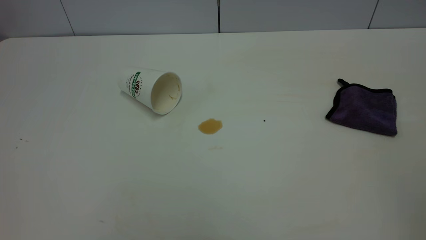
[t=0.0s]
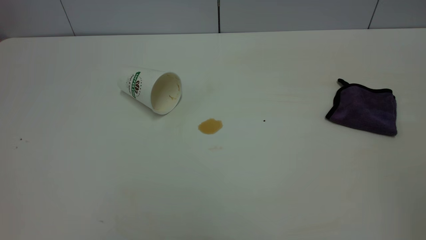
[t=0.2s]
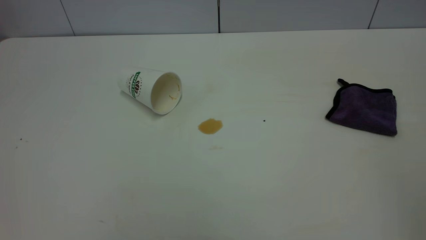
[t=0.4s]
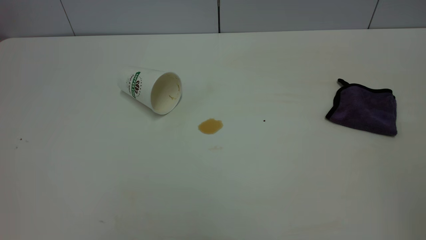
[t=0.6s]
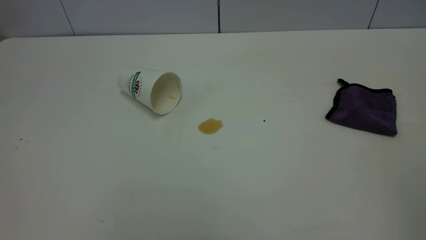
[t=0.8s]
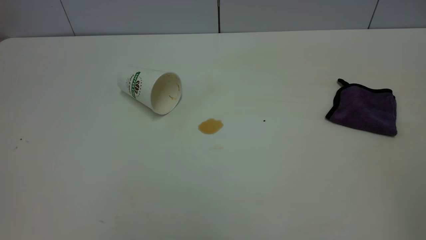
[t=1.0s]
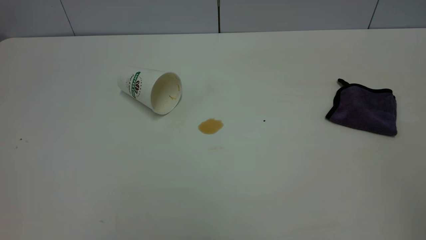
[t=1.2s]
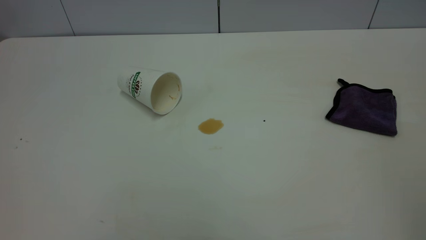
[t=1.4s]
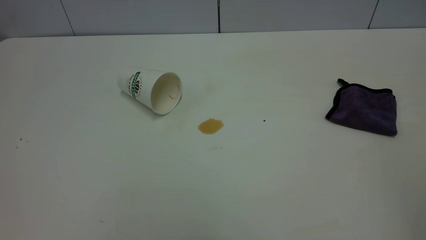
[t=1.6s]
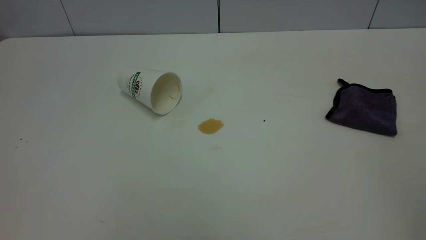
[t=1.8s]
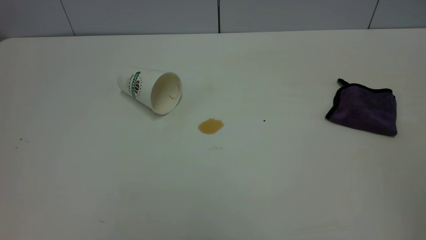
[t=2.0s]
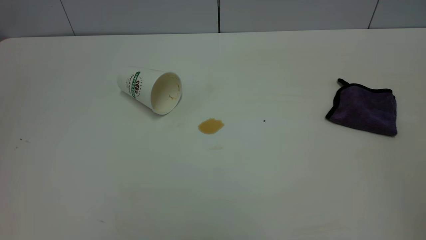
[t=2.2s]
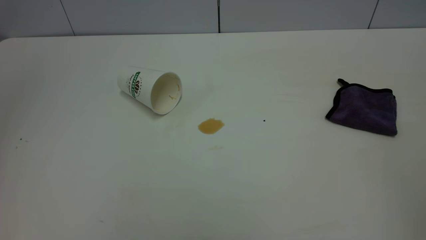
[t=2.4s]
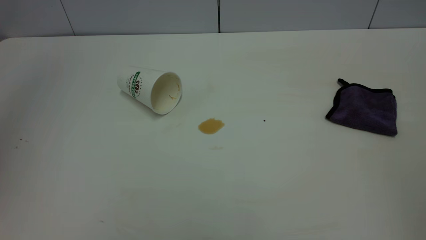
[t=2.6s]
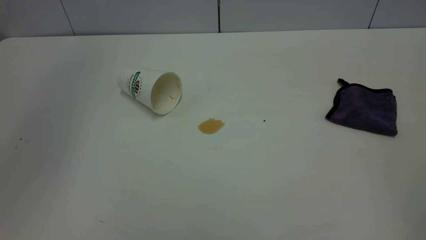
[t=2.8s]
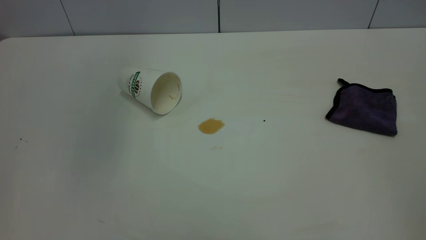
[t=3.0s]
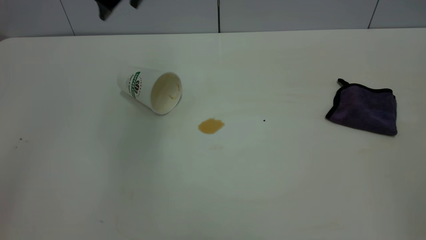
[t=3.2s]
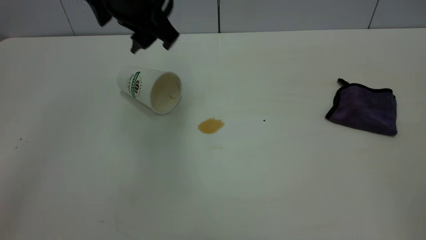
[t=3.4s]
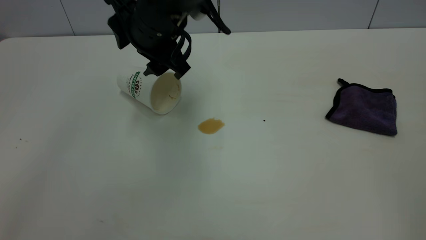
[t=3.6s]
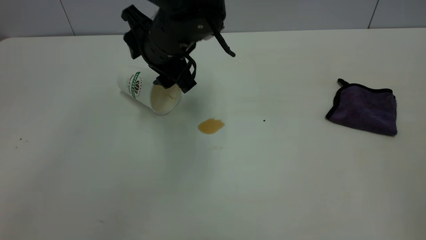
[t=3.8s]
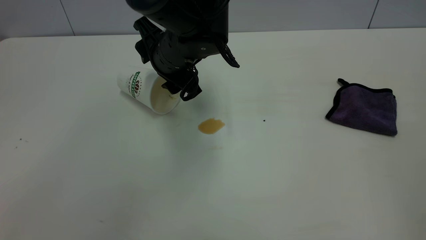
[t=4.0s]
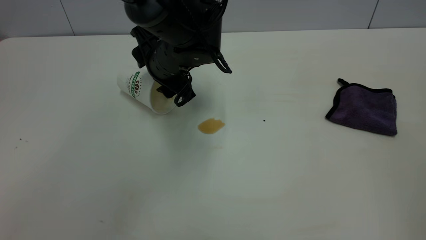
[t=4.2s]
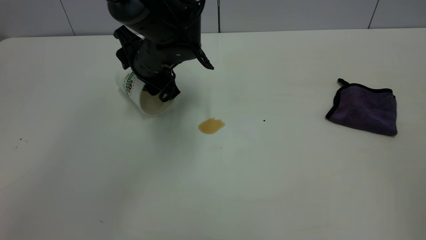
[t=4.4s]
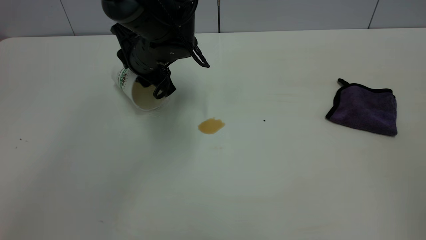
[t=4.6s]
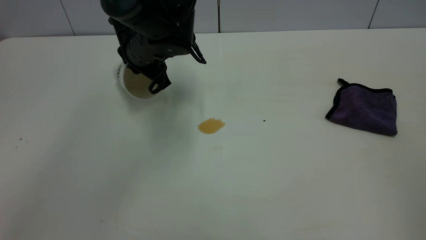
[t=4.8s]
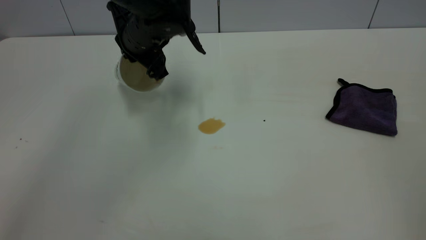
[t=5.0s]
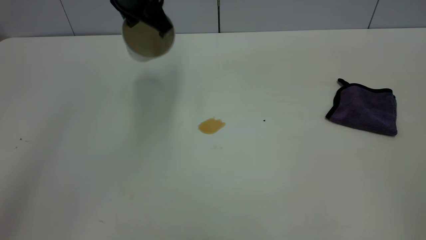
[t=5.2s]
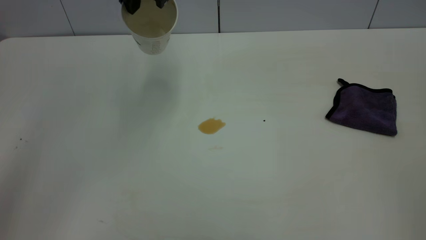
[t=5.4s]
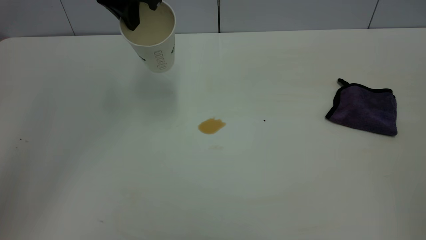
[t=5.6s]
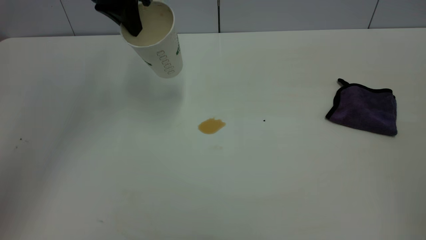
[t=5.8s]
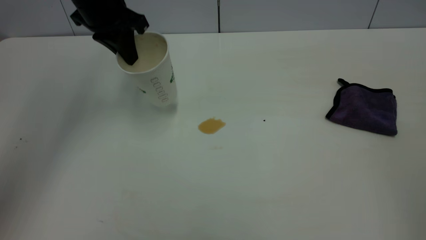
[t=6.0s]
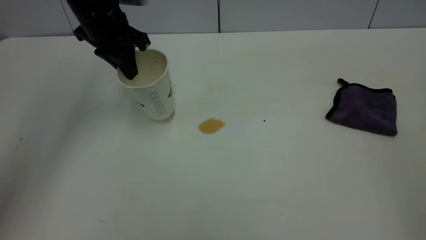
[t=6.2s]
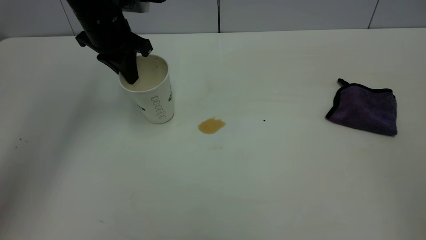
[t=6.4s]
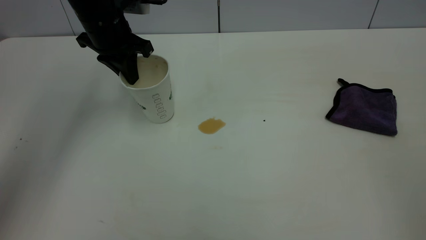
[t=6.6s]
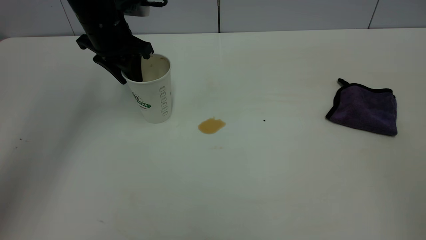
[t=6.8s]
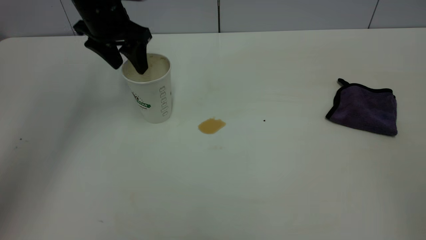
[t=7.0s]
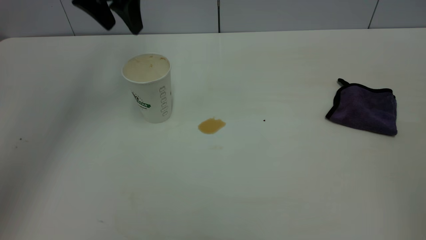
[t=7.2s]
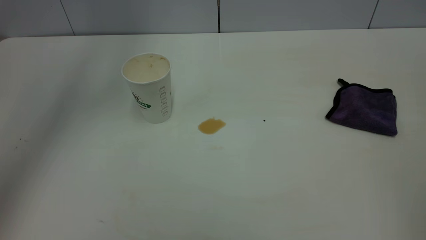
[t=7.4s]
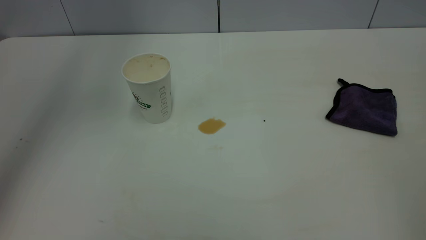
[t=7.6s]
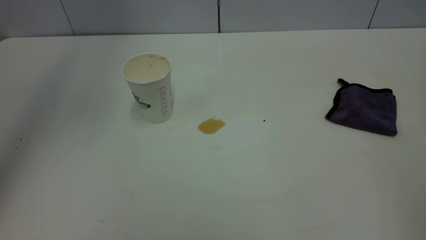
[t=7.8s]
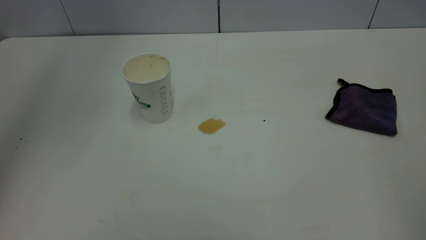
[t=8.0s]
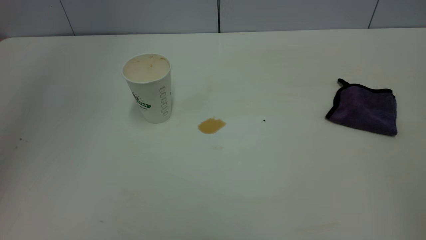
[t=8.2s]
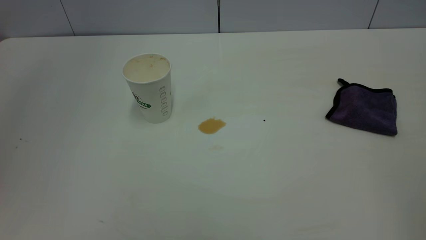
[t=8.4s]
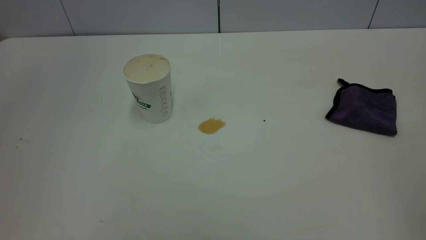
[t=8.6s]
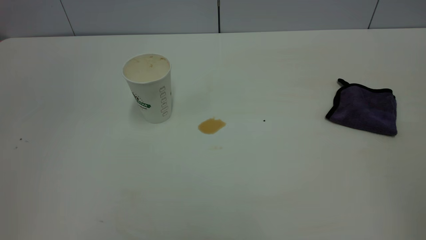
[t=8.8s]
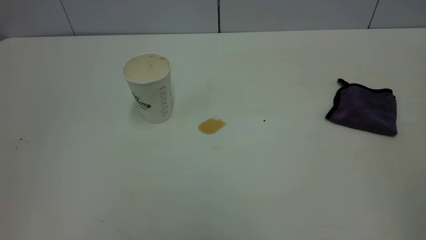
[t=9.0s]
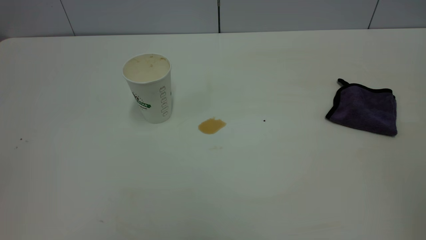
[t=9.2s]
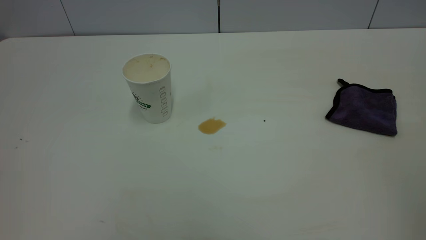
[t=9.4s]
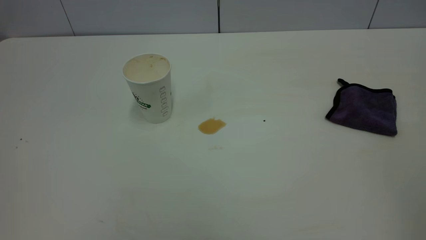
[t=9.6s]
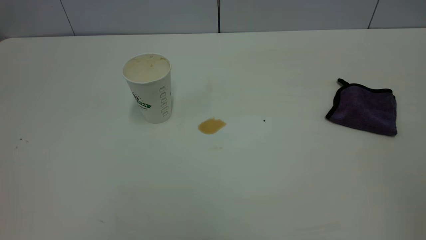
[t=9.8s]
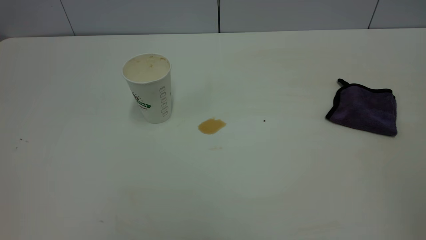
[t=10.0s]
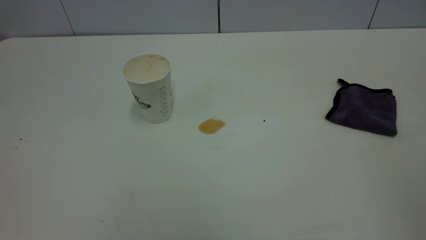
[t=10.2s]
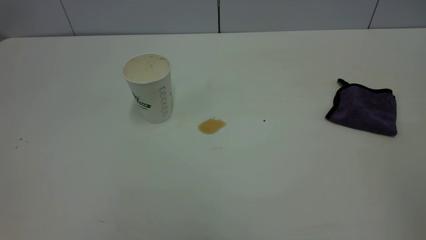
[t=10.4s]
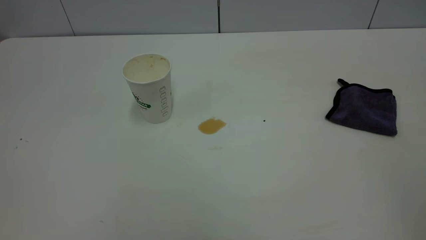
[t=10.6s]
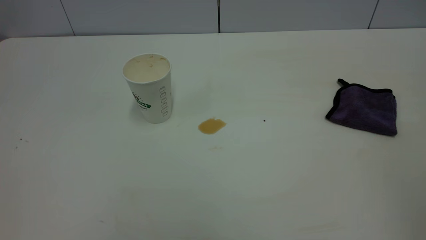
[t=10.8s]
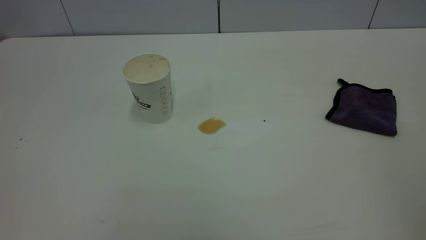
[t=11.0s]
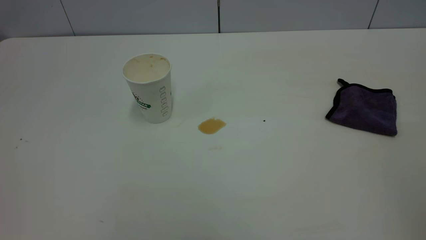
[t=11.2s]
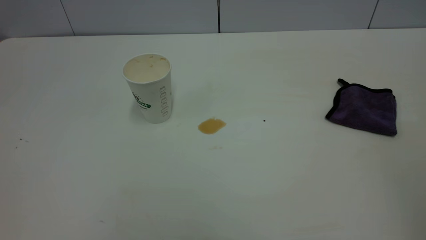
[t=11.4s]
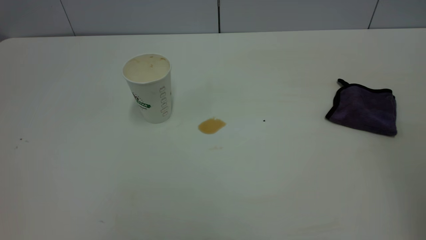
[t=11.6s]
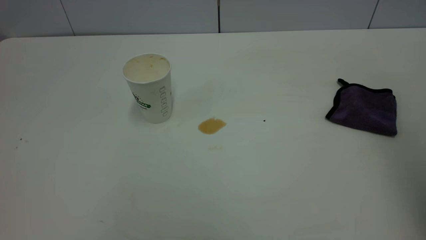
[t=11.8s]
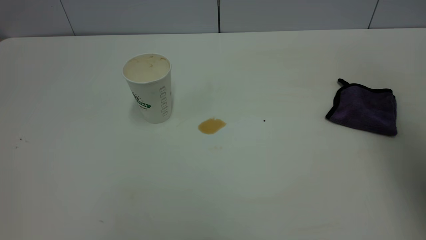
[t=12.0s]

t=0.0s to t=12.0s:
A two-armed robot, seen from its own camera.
Task of the whole recording: the left gripper pick up the fallen cup and place it upright, the right gripper grasp the purple rag and wipe the tea stain on the table, the right gripper put the purple rag back in its original position.
Step, t=0.0s to t=7.0s: Stand the paper cup upright.
t=0.0s to t=1.6s: Both grippers stay put.
t=1.6s to t=3.0s: The left gripper moves forward and to the right, about 35 cm, and opens.
t=3.0s to t=4.4s: The left gripper is displaced downward by approximately 25 cm.
t=4.4s to t=6.0s: The left gripper is displaced upward and to the left by roughly 15 cm, and closes up.
t=6.0s to t=7.6s: The left gripper is displaced upward by about 20 cm, and opens up.
t=10.4s to t=12.0s: The right gripper is displaced forward by roughly 25 cm, and opens its fingers.

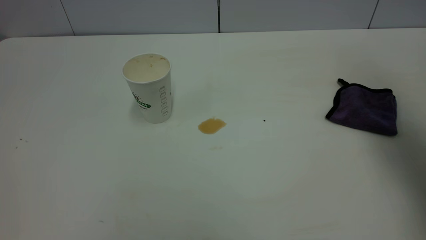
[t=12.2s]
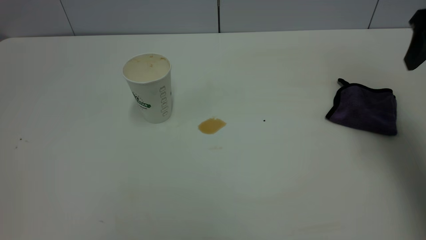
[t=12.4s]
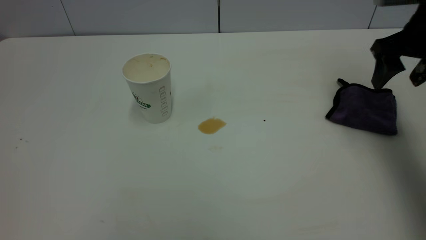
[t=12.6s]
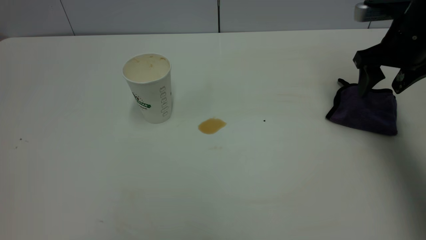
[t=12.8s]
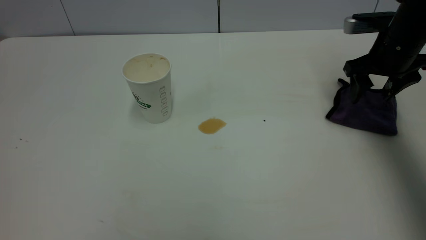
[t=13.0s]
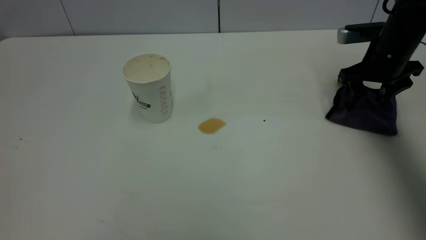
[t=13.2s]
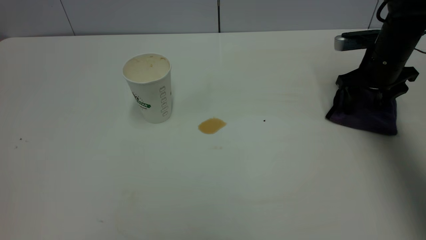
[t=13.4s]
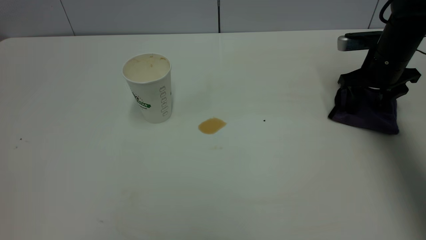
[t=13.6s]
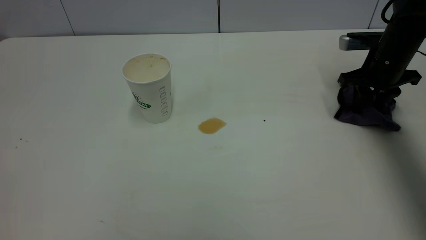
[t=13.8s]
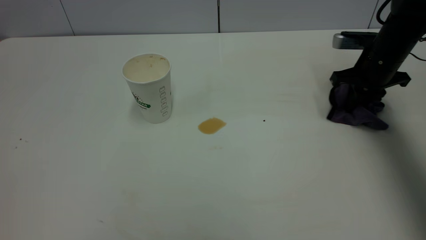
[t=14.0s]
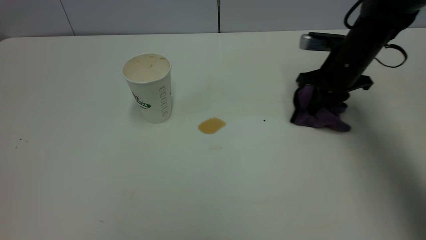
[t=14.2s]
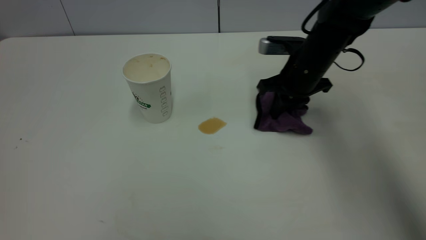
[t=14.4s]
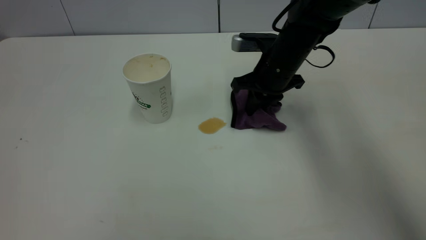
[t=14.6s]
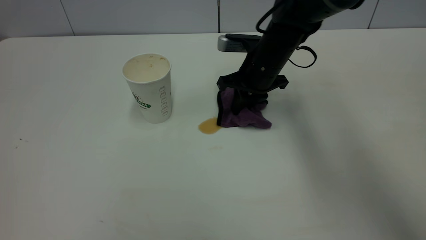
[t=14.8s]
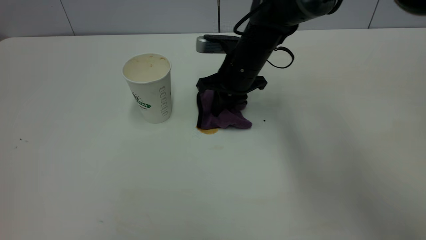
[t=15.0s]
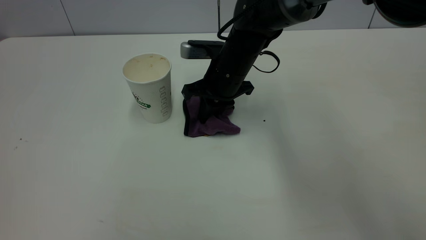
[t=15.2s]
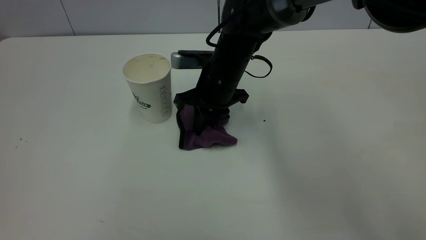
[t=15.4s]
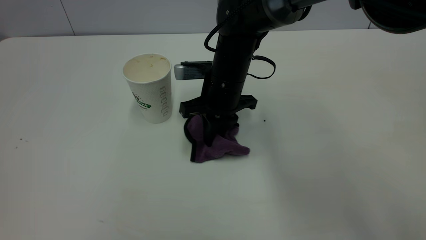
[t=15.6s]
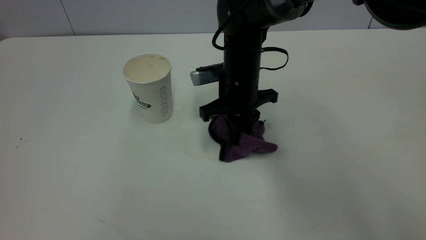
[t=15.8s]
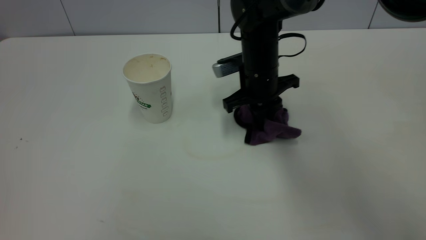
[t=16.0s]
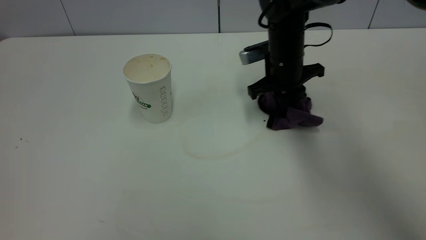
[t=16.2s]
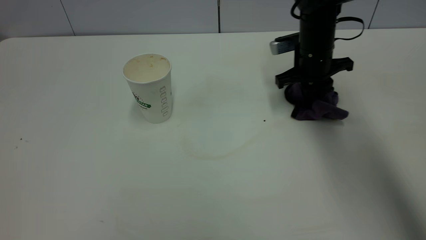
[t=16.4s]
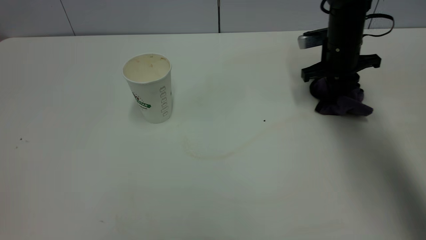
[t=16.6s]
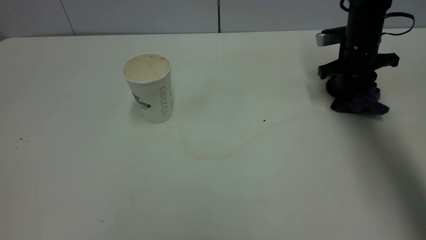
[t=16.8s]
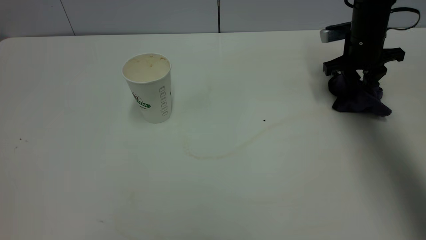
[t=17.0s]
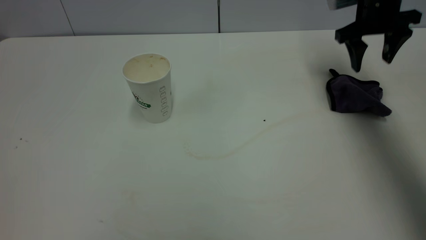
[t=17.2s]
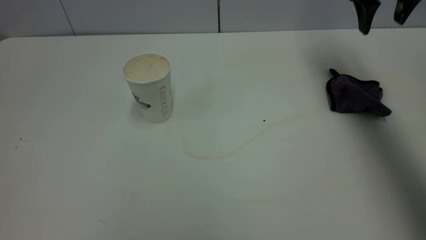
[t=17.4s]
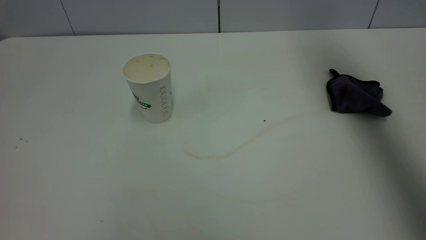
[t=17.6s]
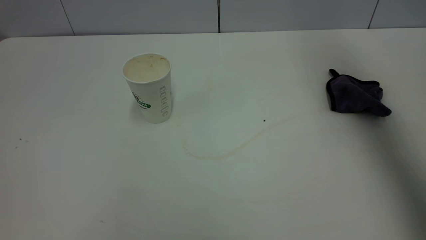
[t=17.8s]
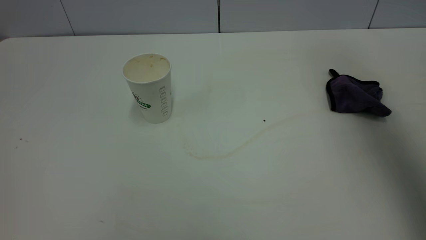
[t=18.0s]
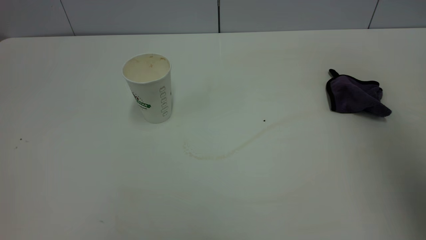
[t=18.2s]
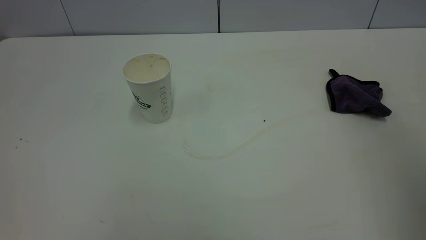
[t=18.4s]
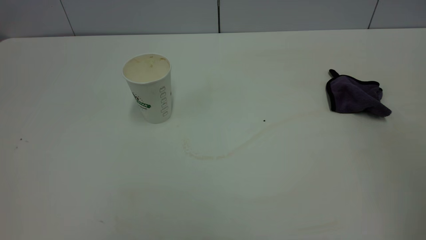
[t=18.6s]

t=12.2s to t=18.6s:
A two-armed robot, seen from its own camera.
Task of the whole recording: the left gripper pick up the fallen cup and place it upright, the right gripper grasp the purple rag and wipe the tea stain on the table, the right gripper put the purple rag back in its original position.
Step, t=12.2s to t=17.2s: Wipe the stains off the table with a rag.
t=12.2s to t=13.8s: The right gripper is displaced downward and forward by some 25 cm, and closes up.
t=13.8s to t=15.4s: The right gripper travels to the left by some 30 cm.
t=15.4s to t=17.0s: The right gripper shifts approximately 25 cm to the right, and opens up.
t=17.0s to t=18.6s: The right gripper is displaced backward and upward by roughly 50 cm, and opens its fingers.
